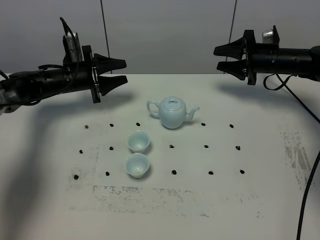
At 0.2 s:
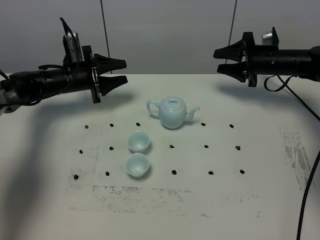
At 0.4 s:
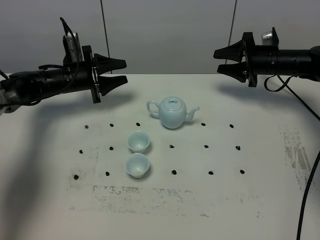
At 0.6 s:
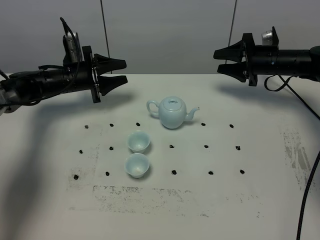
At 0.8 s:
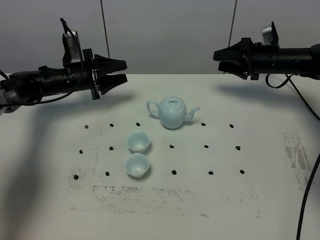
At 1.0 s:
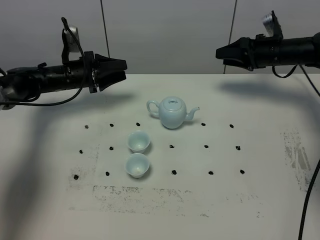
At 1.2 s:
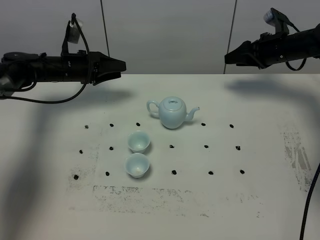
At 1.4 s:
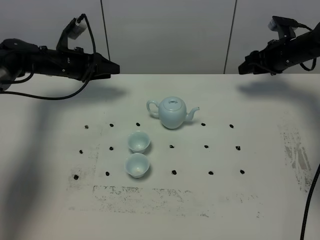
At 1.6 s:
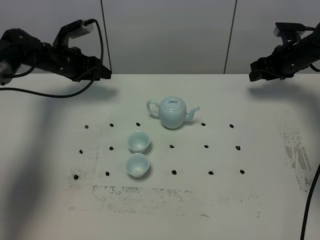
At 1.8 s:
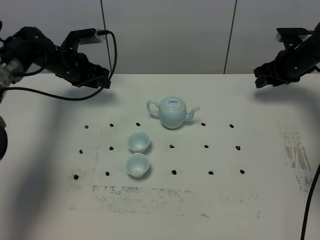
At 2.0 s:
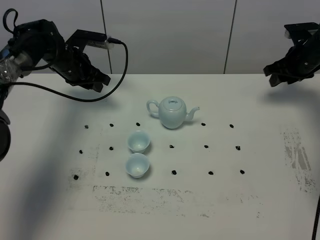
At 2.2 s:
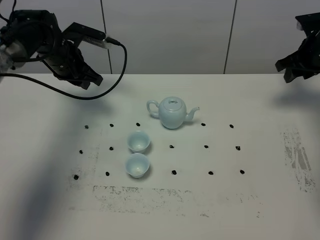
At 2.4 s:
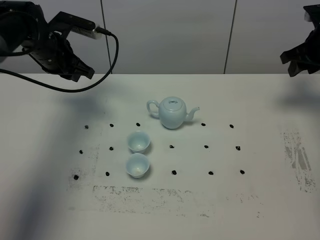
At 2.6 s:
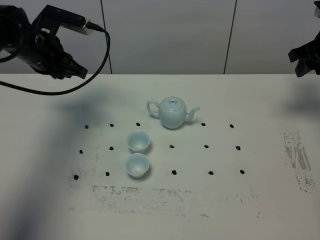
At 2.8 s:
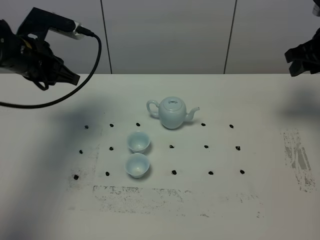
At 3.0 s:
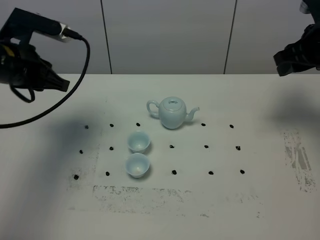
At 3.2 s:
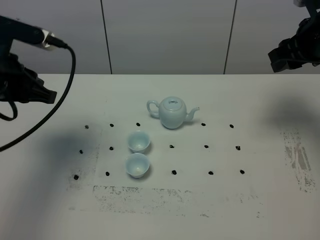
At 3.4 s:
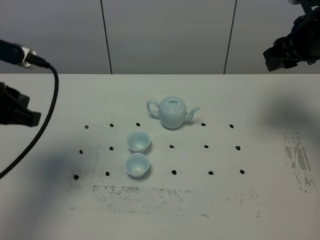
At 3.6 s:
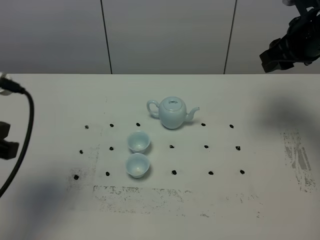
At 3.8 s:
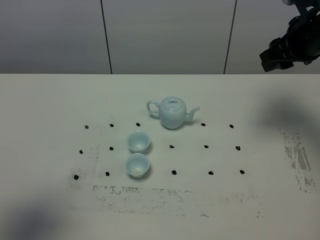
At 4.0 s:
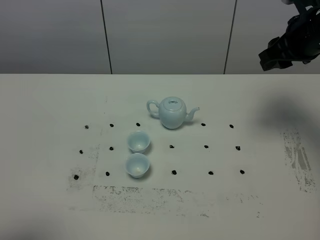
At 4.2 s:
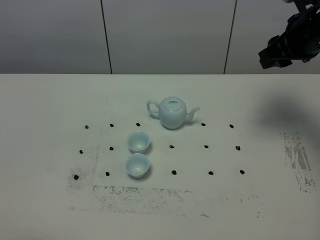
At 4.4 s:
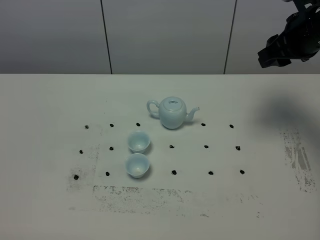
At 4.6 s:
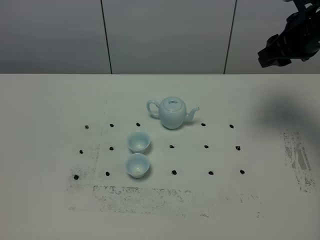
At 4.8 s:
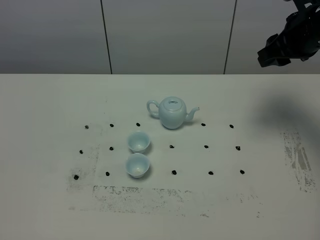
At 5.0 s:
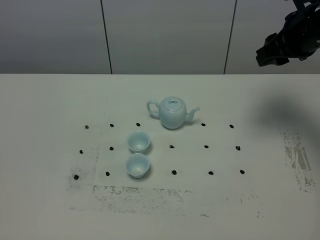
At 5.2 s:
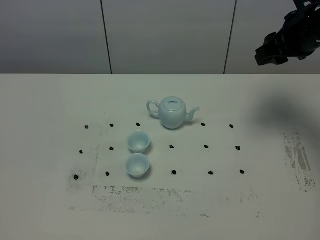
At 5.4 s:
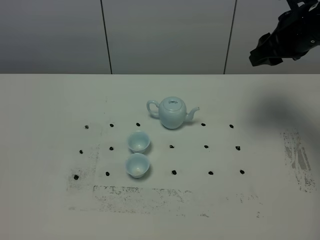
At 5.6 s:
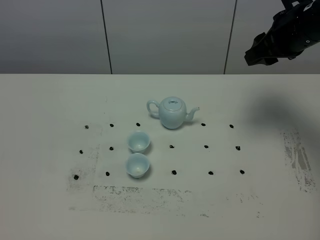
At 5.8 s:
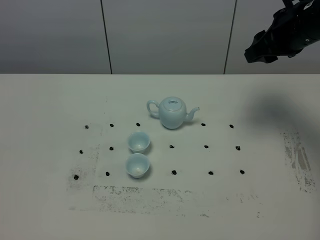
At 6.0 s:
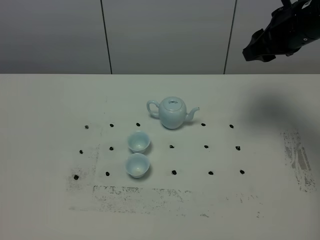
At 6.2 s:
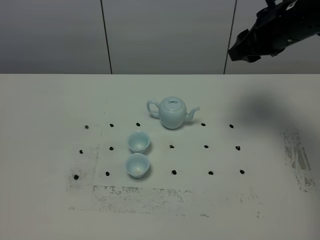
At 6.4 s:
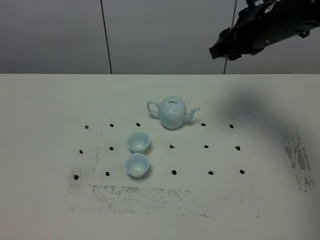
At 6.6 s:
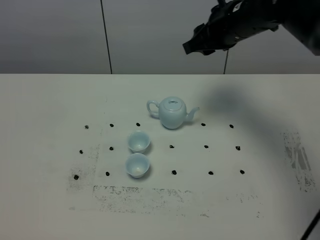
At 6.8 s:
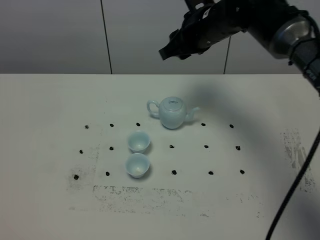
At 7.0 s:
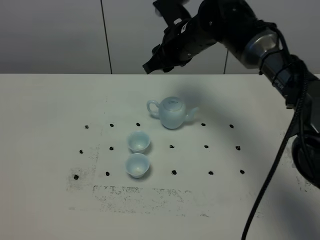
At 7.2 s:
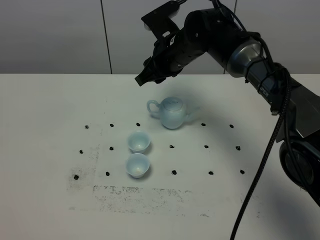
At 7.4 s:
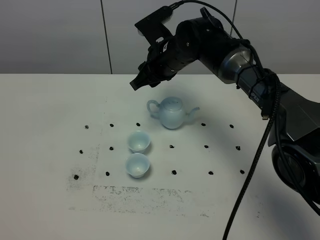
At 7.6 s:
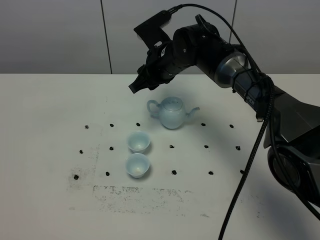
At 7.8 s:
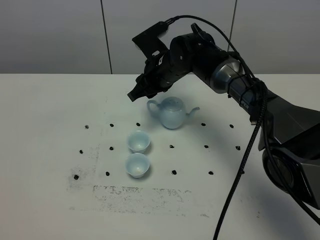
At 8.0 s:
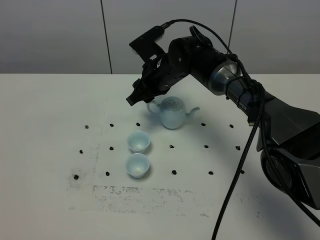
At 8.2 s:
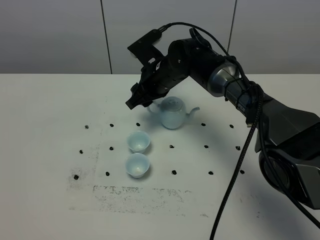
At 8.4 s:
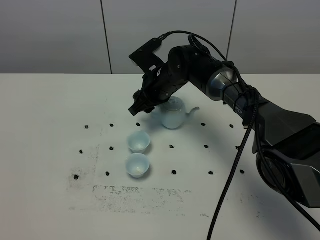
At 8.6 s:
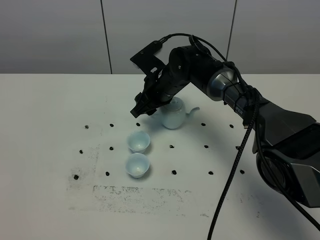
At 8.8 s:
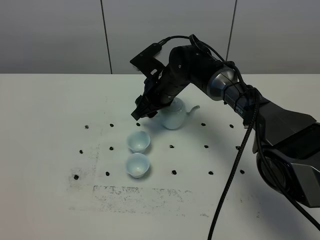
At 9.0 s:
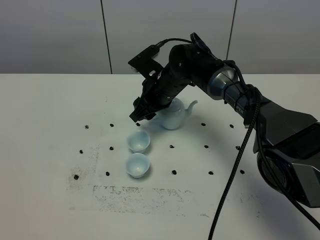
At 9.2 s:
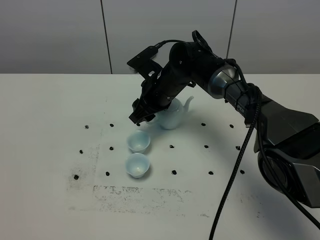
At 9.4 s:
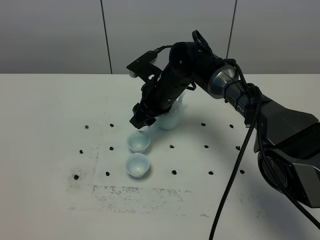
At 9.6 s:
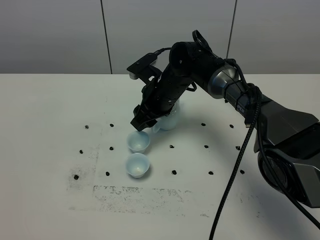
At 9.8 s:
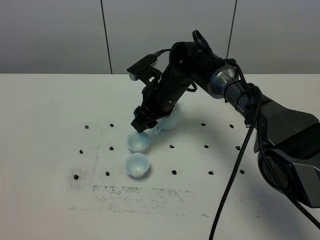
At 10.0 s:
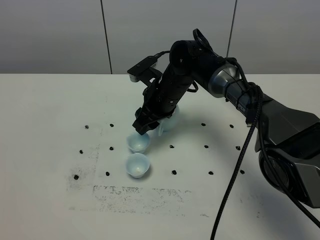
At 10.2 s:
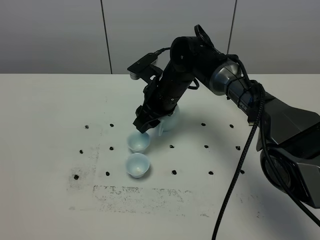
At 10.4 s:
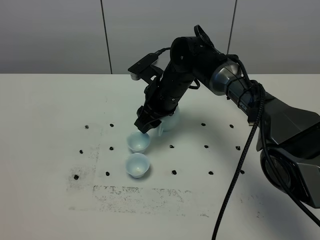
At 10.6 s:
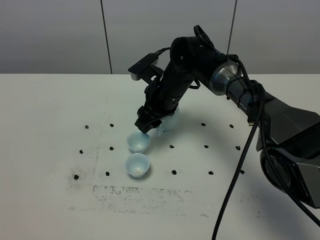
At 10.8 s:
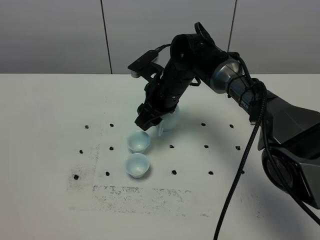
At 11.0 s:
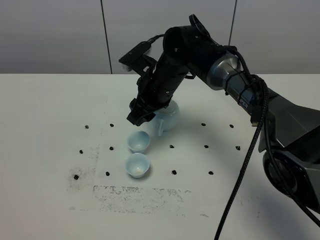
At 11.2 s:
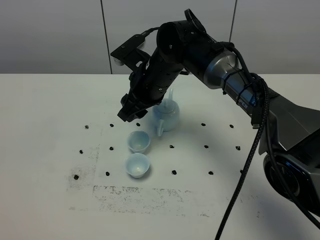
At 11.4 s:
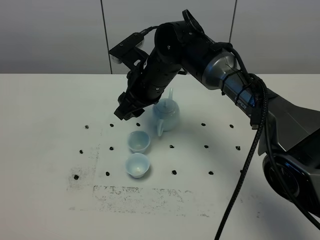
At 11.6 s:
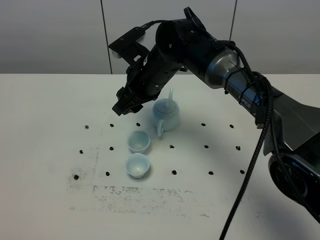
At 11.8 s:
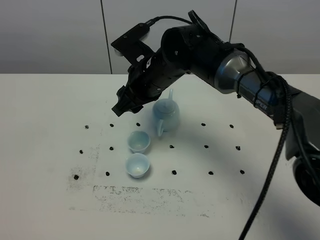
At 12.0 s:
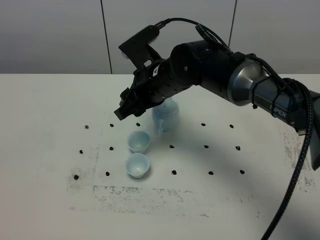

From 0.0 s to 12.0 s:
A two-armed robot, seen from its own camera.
Task of the whole recording: grasp the blue porcelain teapot and pour the tea into the two blue porcelain teacups one by one, put the blue porcelain teapot back in its original place.
From 0.0 s to 1.6 s: The left gripper ends up roughly 5 cm from where it was; the right gripper moves about 5 cm.
From 1.6 s to 3.0 s: The right gripper moves upward and backward, roughly 20 cm; the left gripper moves backward and upward, approximately 25 cm, and closes its fingers.
From 3.0 s to 4.4 s: The left gripper is displaced backward by approximately 35 cm.
From 4.4 s to 6.0 s: There are only small adjustments of the grippers.
From 6.0 s to 7.6 s: The right gripper shifts roughly 25 cm to the left and downward.
From 7.6 s to 9.0 s: The grippers move only a little.
From 9.0 s to 10.4 s: The grippers stay close to where they were, moving slightly.
From 10.4 s to 12.0 s: The right gripper shifts some 10 cm upward and backward.

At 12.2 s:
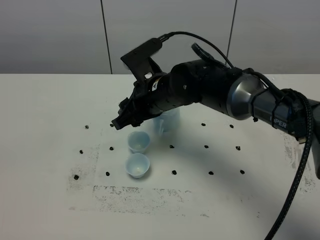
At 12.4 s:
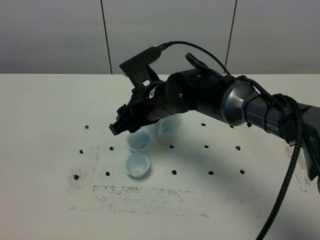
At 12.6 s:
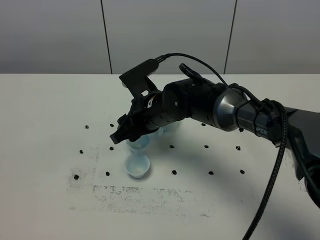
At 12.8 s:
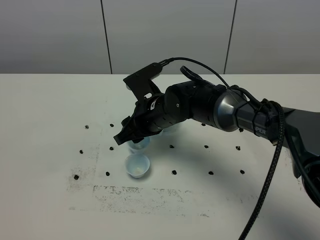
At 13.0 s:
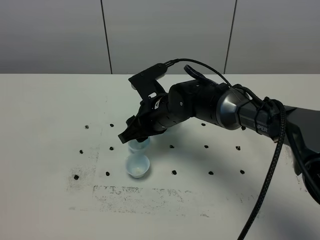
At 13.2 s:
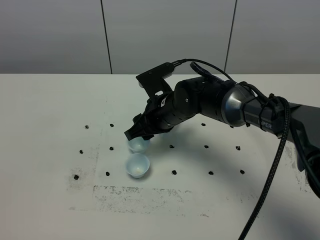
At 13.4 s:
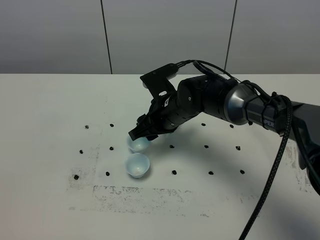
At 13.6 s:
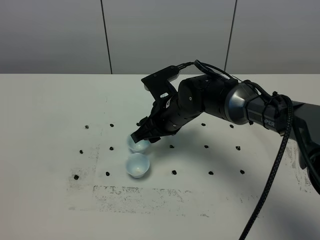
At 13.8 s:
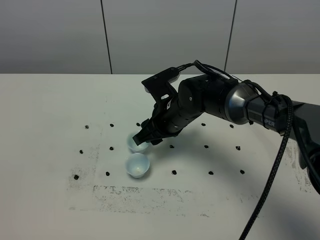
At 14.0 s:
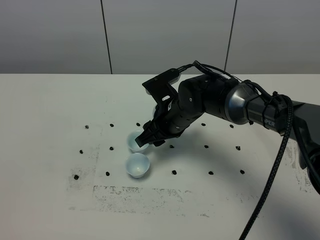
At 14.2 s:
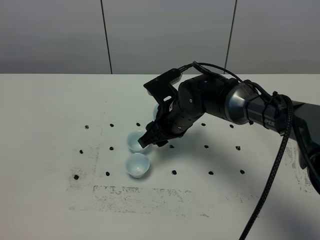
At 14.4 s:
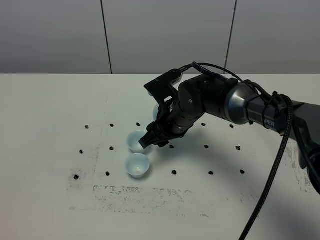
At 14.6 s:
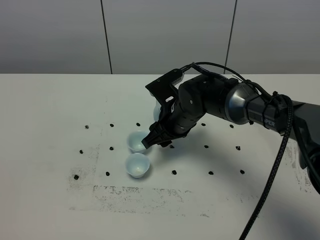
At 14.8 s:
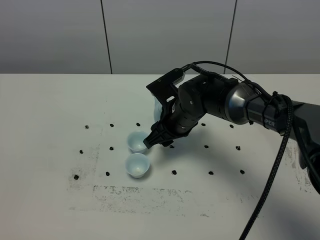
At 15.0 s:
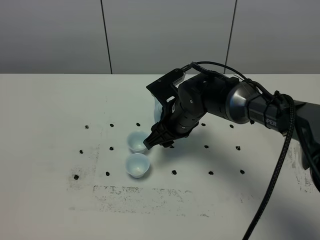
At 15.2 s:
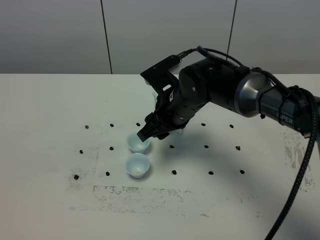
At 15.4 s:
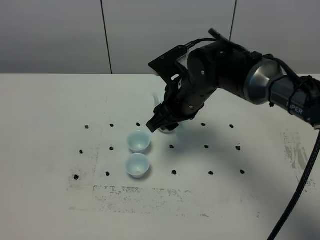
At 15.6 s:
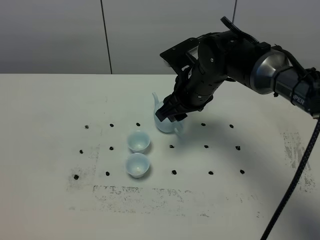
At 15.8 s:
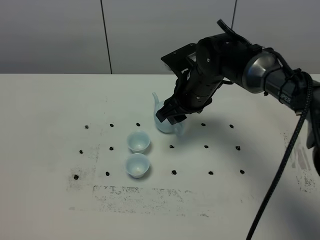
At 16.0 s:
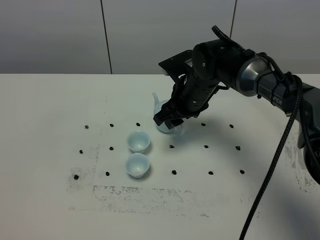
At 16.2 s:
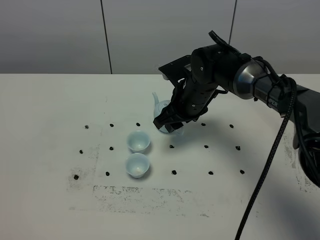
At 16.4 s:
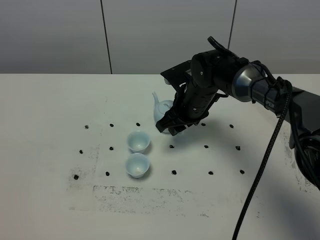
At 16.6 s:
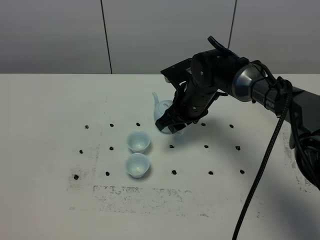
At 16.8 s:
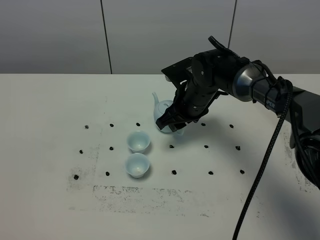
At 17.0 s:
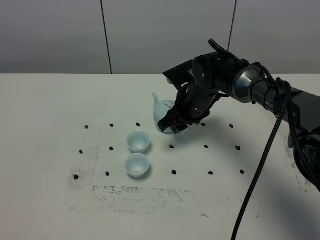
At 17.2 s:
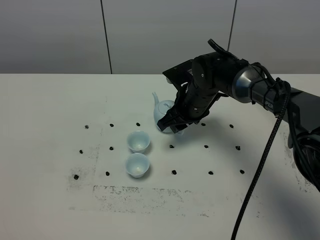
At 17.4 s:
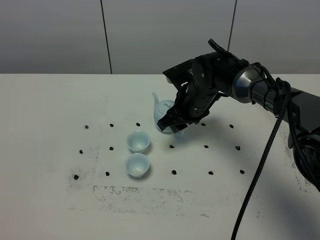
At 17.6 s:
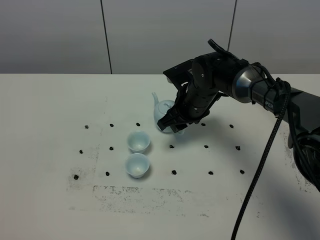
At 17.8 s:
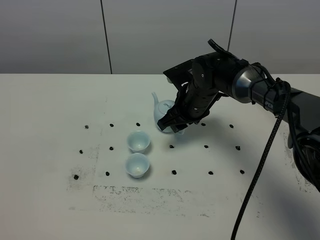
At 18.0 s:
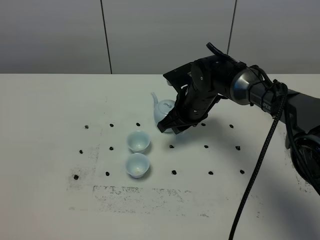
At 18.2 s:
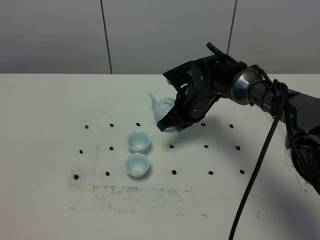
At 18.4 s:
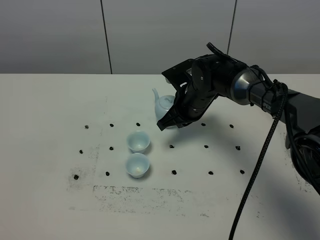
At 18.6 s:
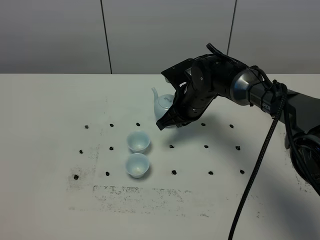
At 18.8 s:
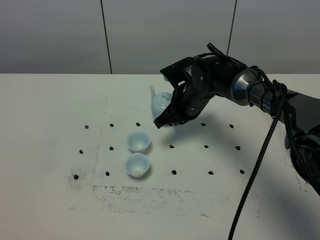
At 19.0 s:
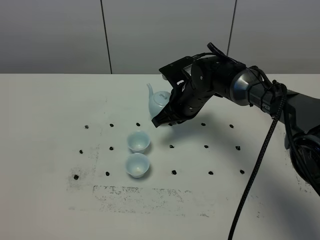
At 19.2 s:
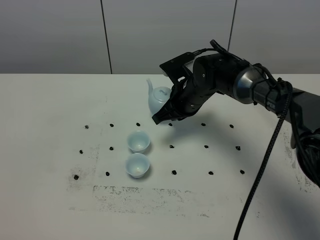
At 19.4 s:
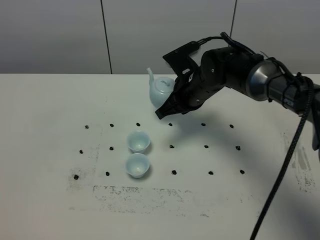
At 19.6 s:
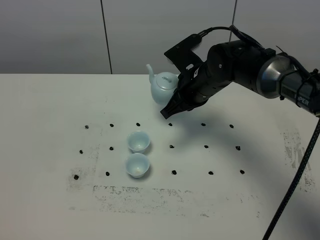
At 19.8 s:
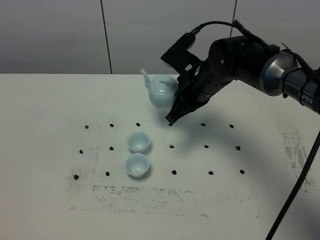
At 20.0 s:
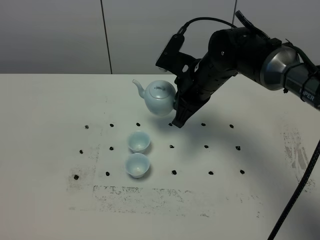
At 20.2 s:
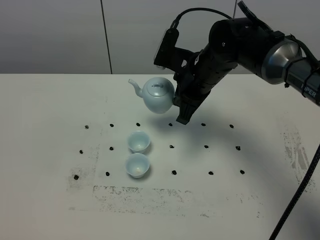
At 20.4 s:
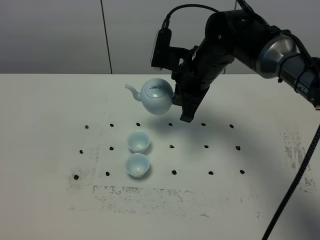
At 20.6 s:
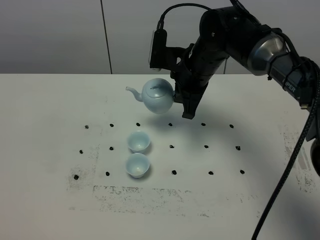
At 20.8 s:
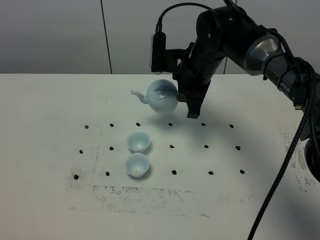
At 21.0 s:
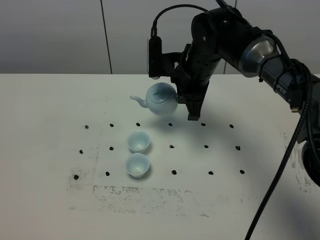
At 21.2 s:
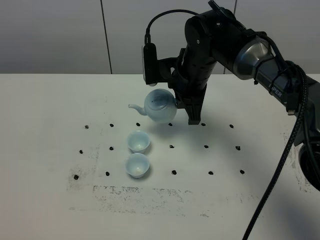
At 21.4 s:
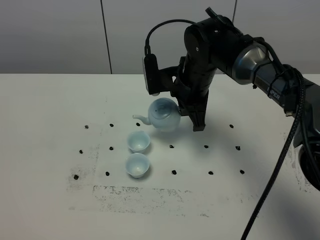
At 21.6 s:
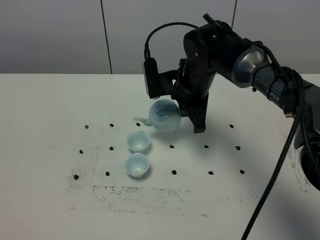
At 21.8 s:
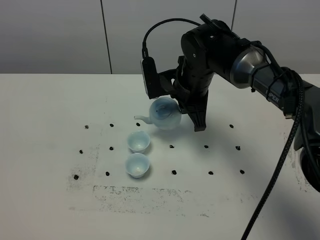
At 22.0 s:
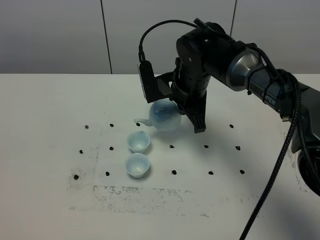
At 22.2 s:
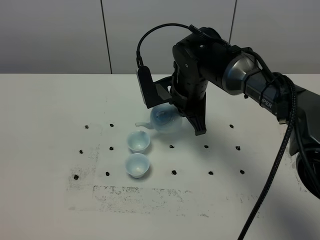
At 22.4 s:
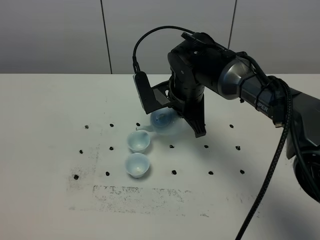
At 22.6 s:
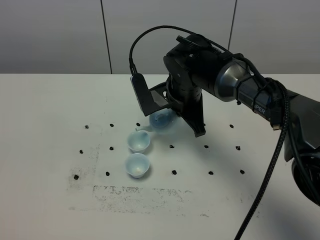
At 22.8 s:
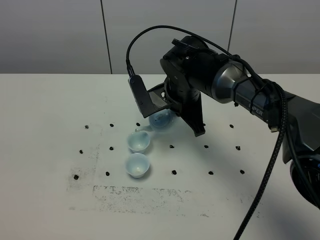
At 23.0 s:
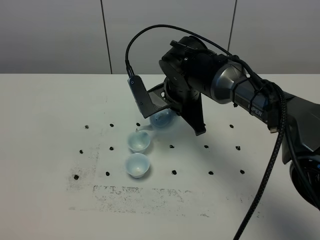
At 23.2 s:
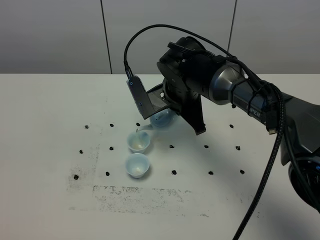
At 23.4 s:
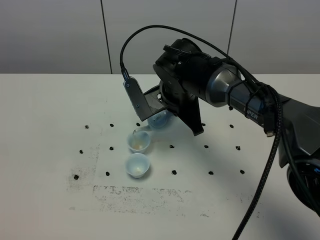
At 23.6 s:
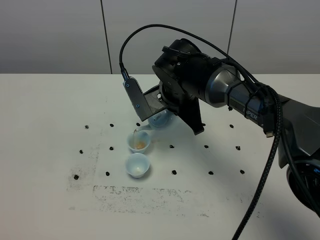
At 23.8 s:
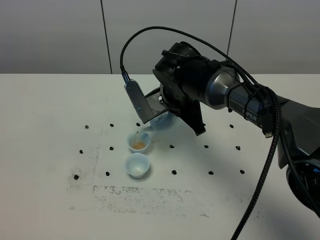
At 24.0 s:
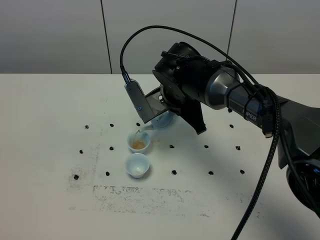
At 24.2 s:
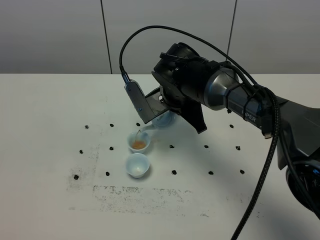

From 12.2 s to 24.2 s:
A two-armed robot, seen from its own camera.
Task of the whole recording: grasp the blue porcelain teapot and pour the tea into the two blue porcelain teacups one by one, put the blue porcelain teapot back in its original place.
Step, from 12.2 s to 19.2 s: Pick up the teapot with the right gripper.
From 12.2 s to 13.8 s: The right gripper travels downward by roughly 5 cm.
From 13.8 s to 15.2 s: The grippers move only a little.
From 15.2 s to 16.6 s: The right gripper is displaced forward by roughly 5 cm.
From 16.6 s to 18.2 s: The right gripper closes.
From 18.2 s to 19.8 s: The right gripper is displaced upward by some 5 cm.
From 22.6 s to 24.2 s: The grippers make only small movements.
